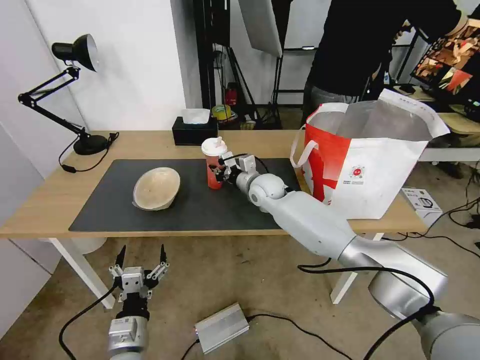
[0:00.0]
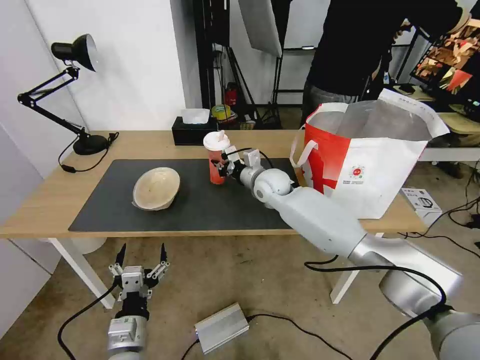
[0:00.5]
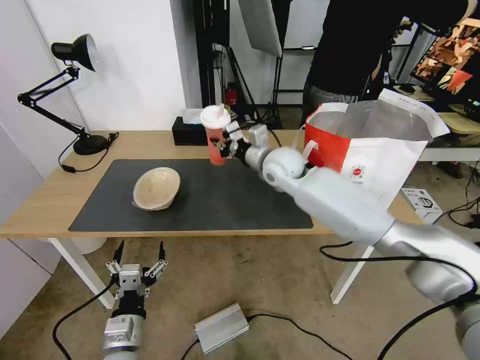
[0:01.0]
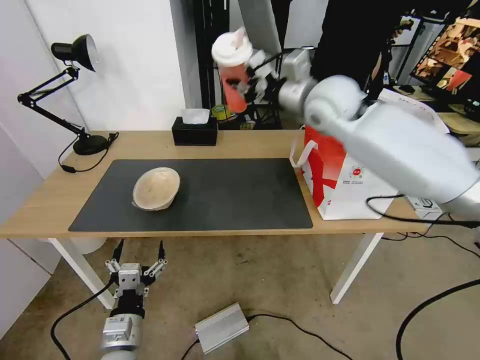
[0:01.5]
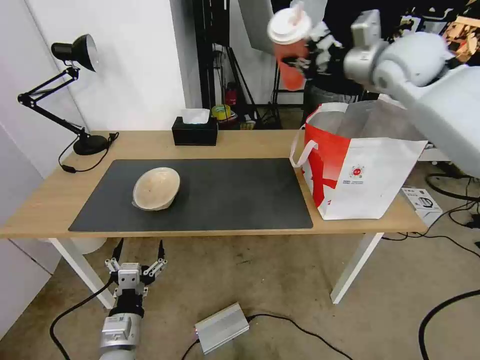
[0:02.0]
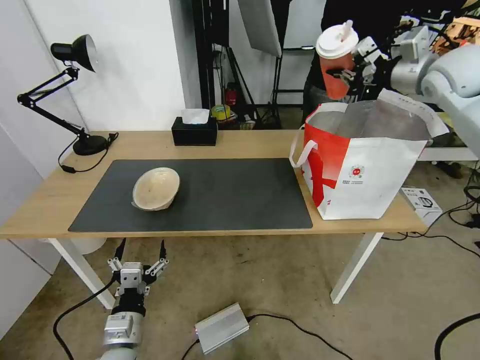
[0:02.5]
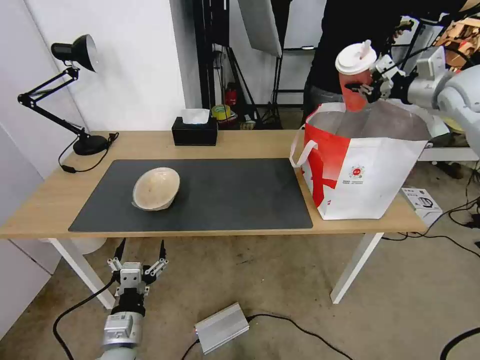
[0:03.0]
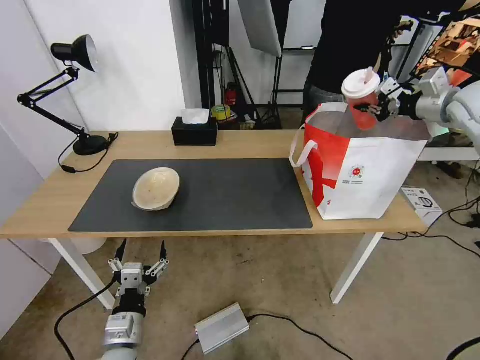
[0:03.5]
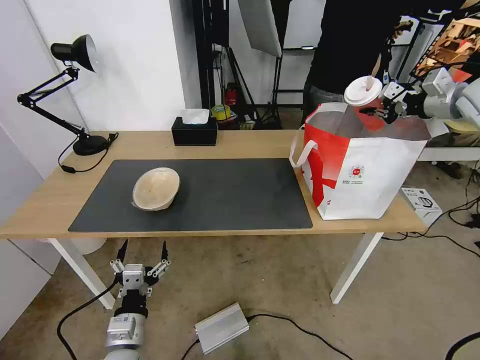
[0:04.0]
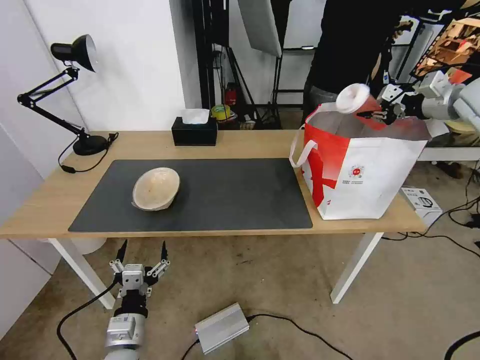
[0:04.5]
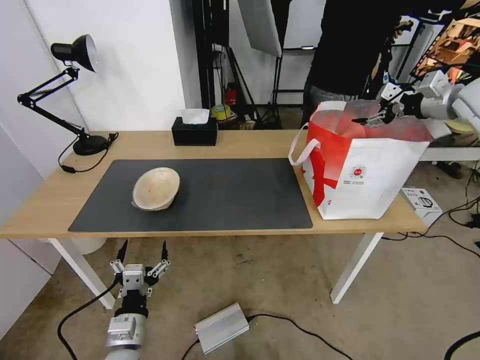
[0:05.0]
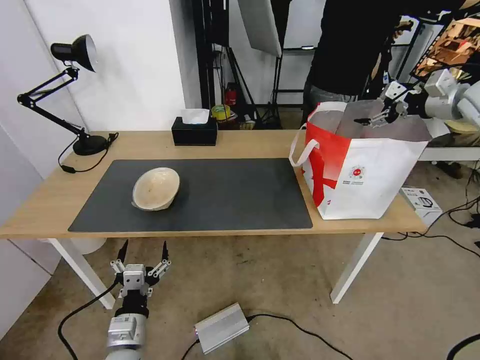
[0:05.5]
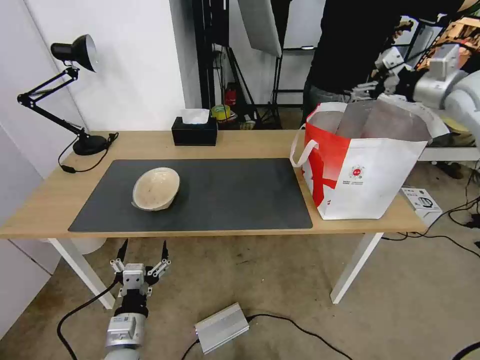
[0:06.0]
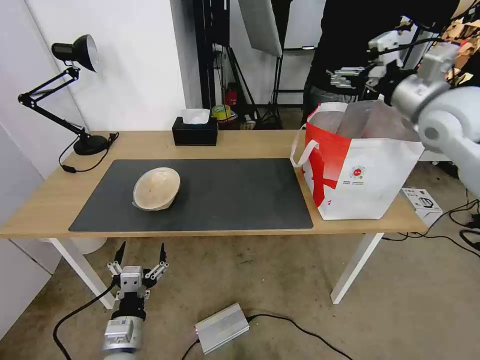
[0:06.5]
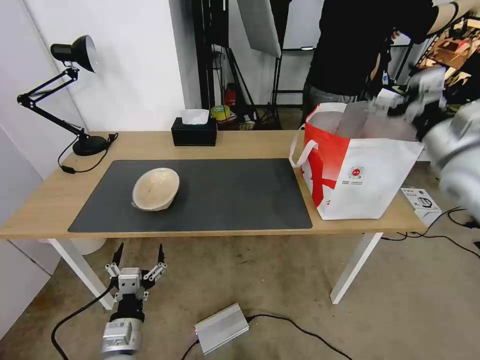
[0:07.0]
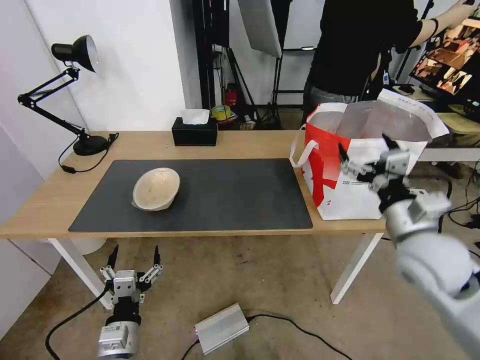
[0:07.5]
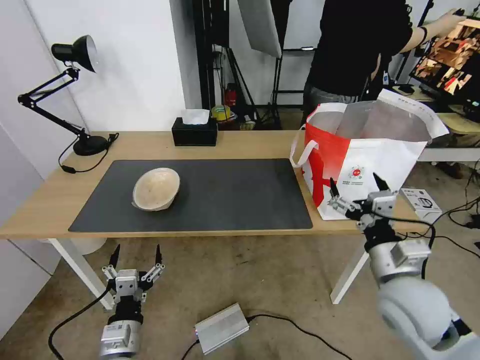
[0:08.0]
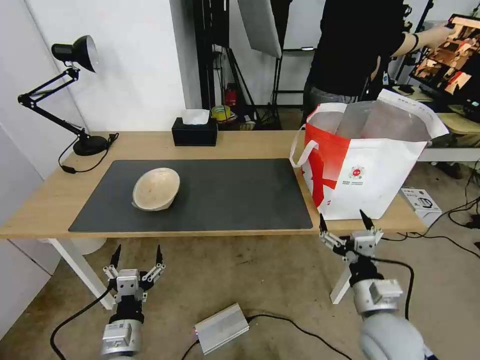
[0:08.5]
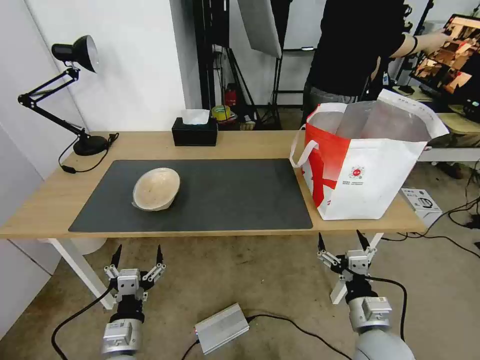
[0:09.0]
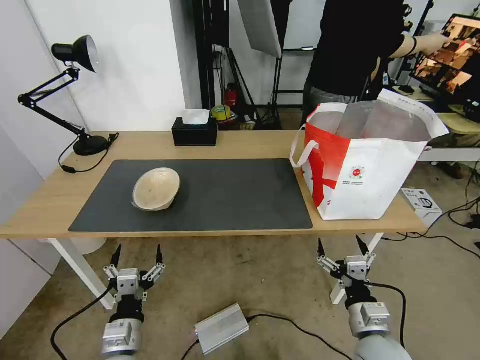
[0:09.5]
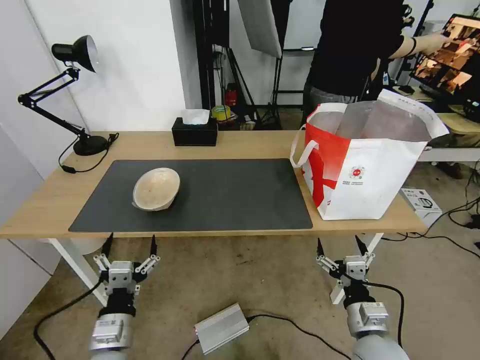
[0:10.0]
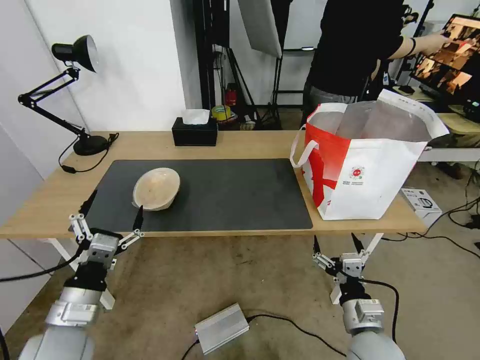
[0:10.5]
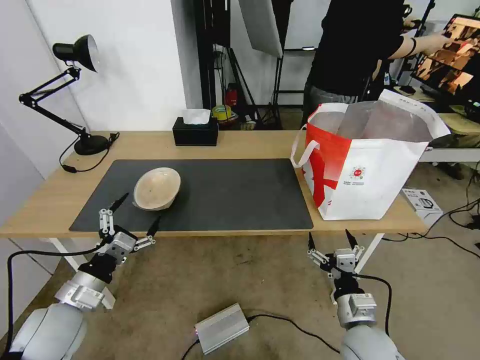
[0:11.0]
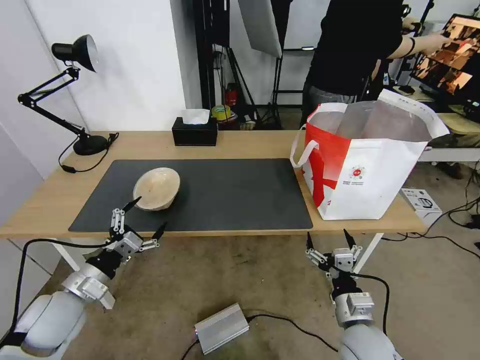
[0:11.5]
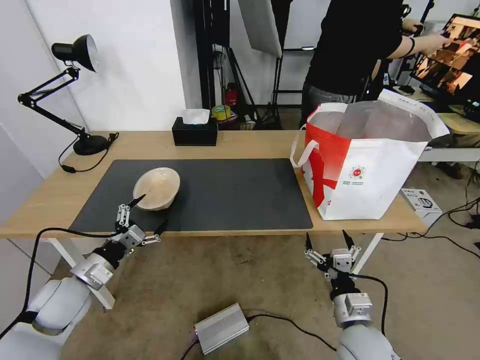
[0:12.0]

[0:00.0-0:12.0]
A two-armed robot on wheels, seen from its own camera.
Task of the whole recording: Pick up the trash from the table and place it into the takeout bag.
0:00.0 to 0:02.0: The right gripper is displaced upward and to the right by some 40 cm.
0:02.0 to 0:04.0: The right gripper shifts approximately 20 cm to the right.
0:04.0 to 0:06.0: The right gripper moves to the left, about 5 cm, and opens.
0:06.0 to 0:08.0: The right gripper shifts roughly 40 cm backward, downward and to the left.
0:08.0 to 0:10.0: The right gripper moves downward and backward, approximately 15 cm.
0:10.0 to 0:12.0: The left gripper travels to the left and forward by some 20 cm.

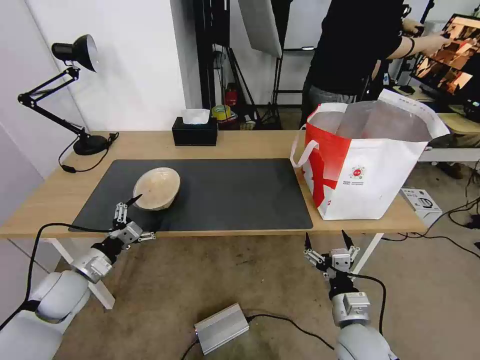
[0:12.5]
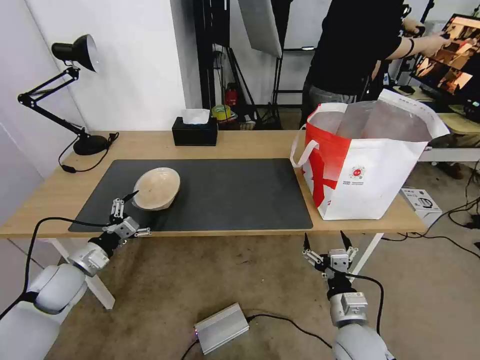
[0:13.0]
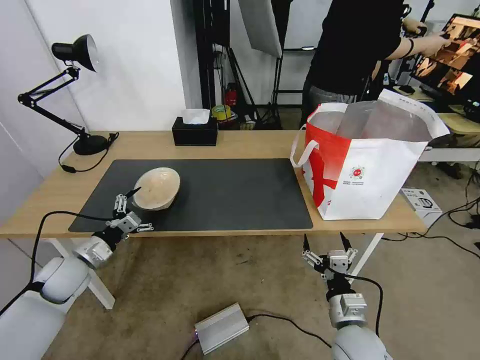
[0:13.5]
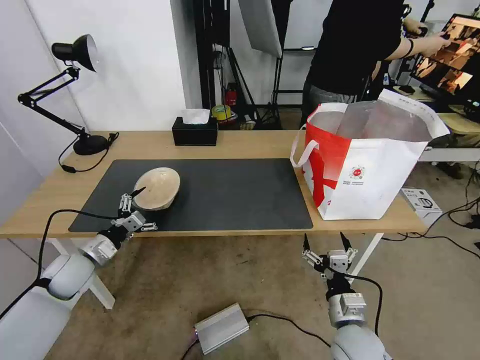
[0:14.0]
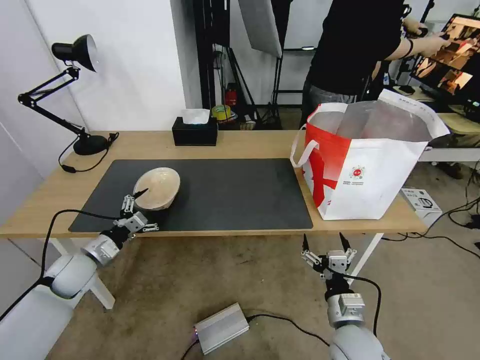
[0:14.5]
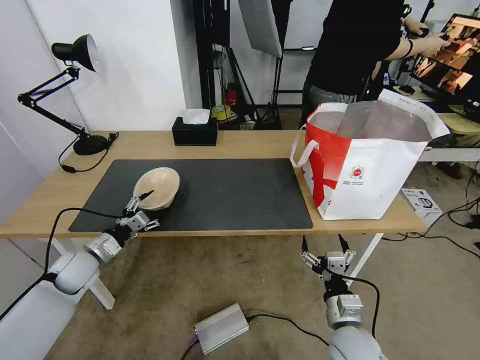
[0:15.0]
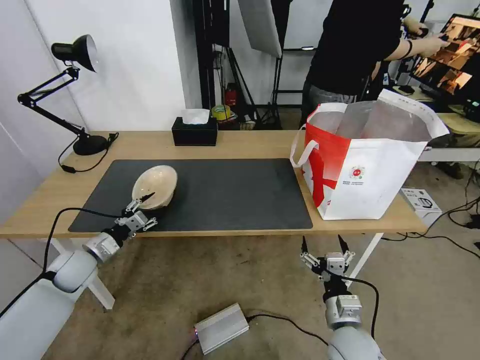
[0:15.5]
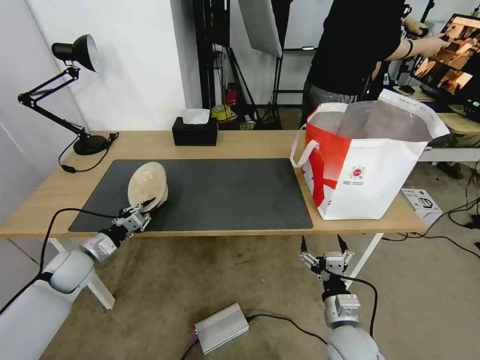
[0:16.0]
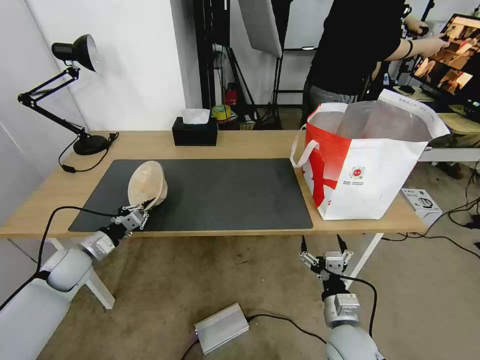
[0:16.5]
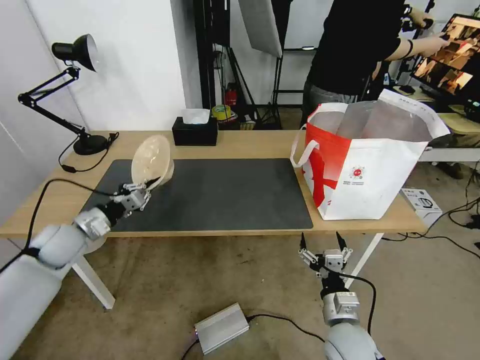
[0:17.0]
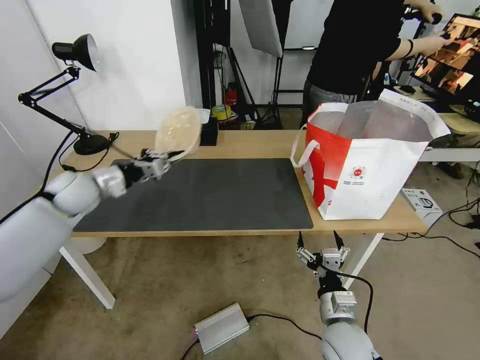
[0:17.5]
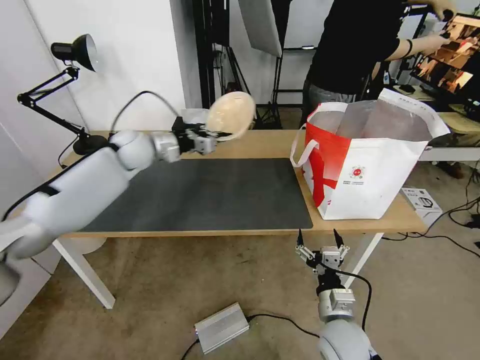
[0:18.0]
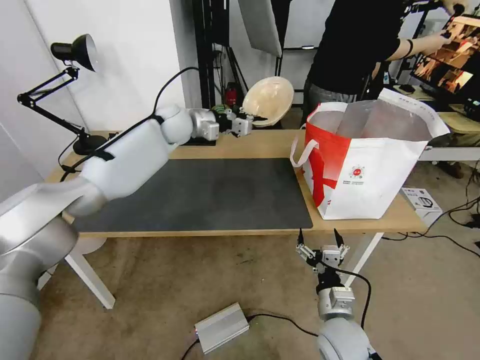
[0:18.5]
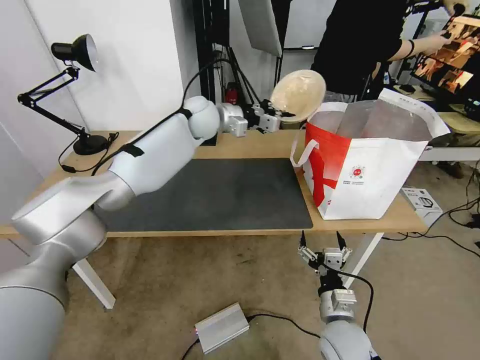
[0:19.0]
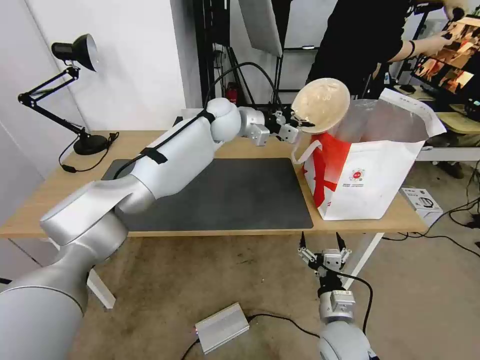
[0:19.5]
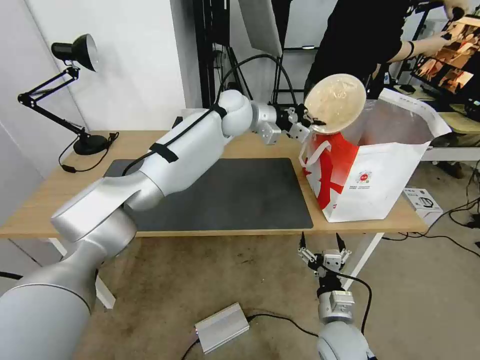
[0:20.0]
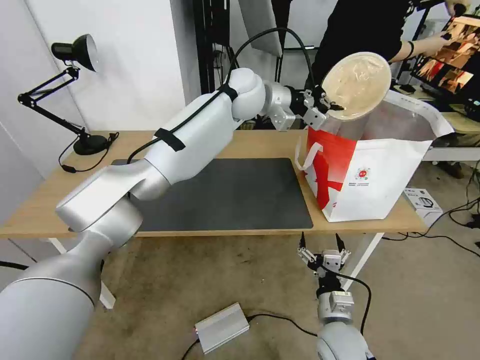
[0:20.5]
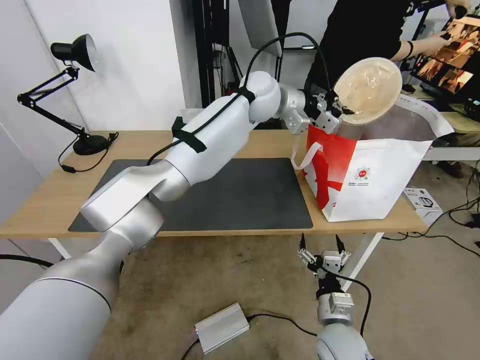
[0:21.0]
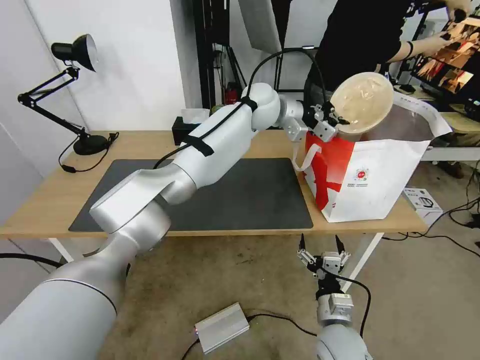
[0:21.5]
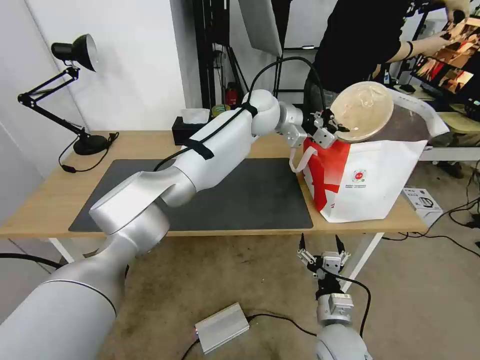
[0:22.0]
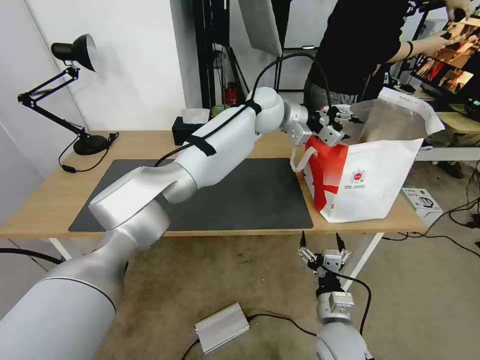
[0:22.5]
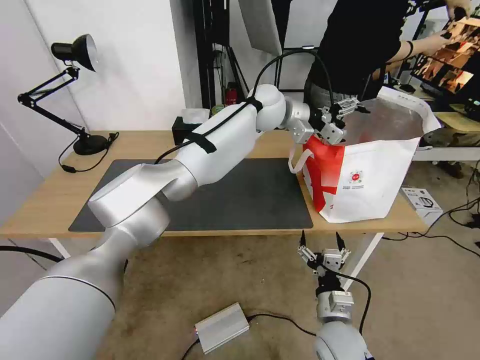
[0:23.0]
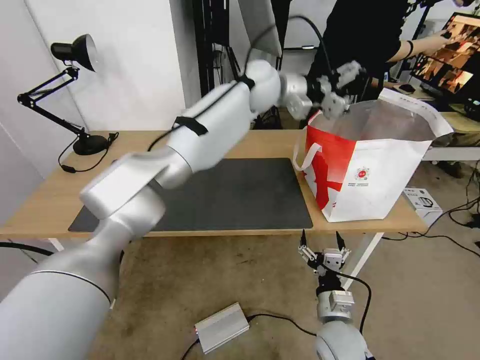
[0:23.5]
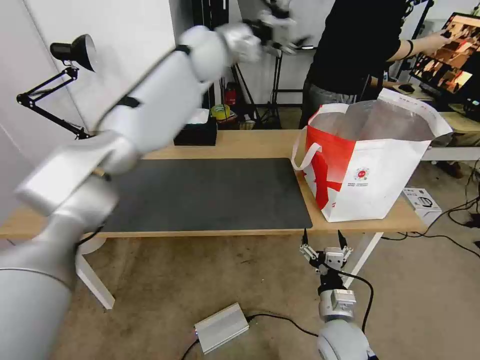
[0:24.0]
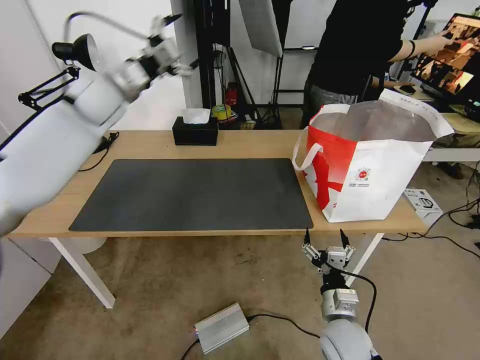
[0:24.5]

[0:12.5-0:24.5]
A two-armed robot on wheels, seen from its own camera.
Task of the whole recording: Pick up the trash from the table and place it into the takeout bag.
0:12.5 to 0:14.5: The left gripper moves forward, about 5 cm.
0:14.5 to 0:16.5: The left gripper closes its fingers.
0:16.5 to 0:18.5: The left gripper heads forward, to the right and upward, covering approximately 40 cm.
0:18.5 to 0:20.5: The left gripper is displaced to the right and upward by approximately 20 cm.
0:20.5 to 0:22.5: The left gripper changes place by some 5 cm, and opens up.
0:22.5 to 0:24.5: The left gripper heads to the left, covering roughly 35 cm, and opens its fingers.

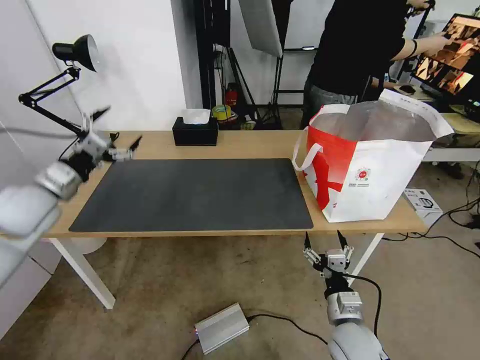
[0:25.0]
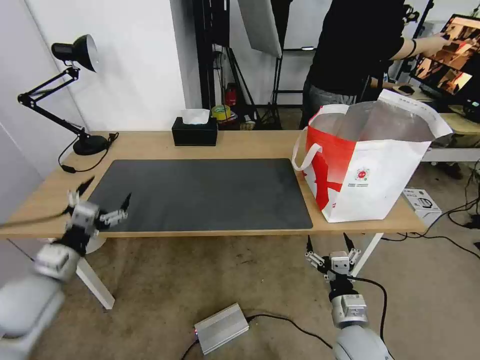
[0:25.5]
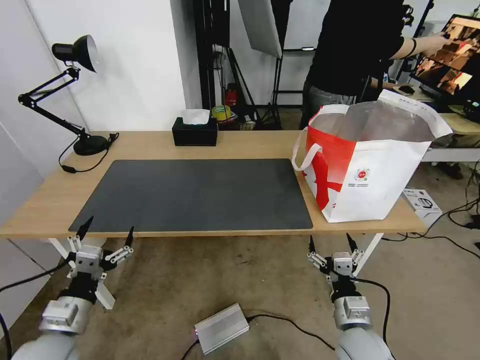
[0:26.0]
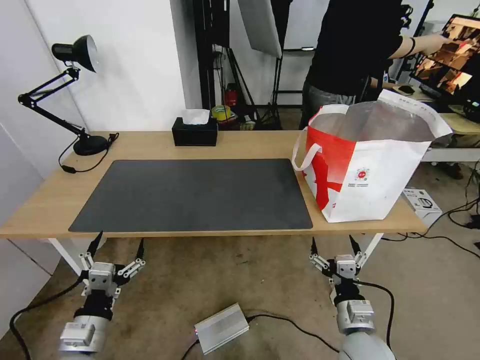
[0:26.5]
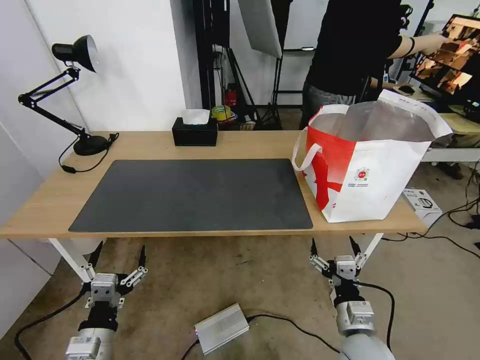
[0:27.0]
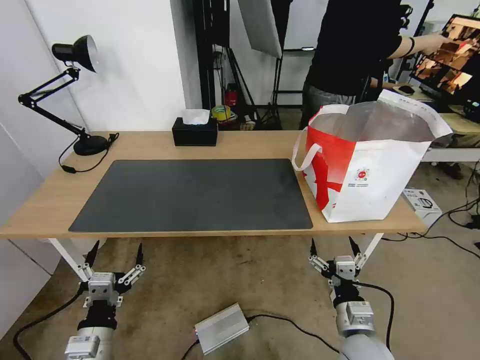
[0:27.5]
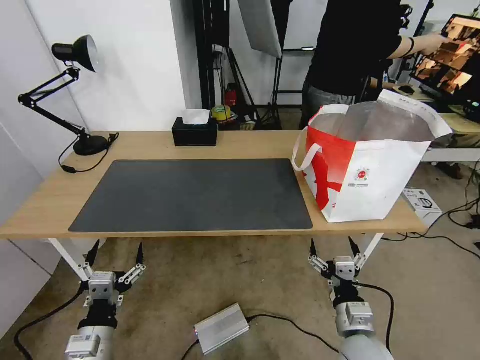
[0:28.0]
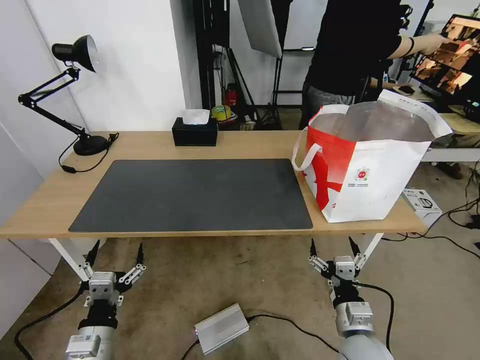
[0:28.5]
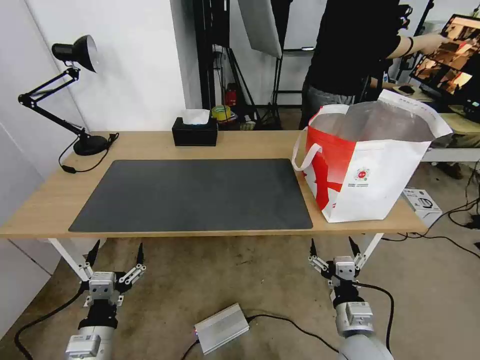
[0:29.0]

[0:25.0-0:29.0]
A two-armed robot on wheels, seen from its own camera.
Task of the whole recording: Pick up the trash from the table and place it into the takeout bag.
0:25.0 to 0:27.0: The left gripper travels backward, downward and to the right by approximately 35 cm.
0:27.0 to 0:29.0: Both grippers stay about where they are.
